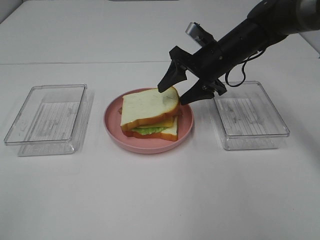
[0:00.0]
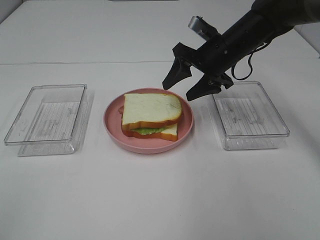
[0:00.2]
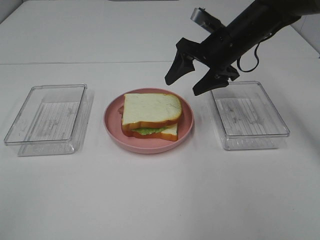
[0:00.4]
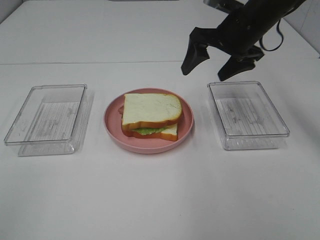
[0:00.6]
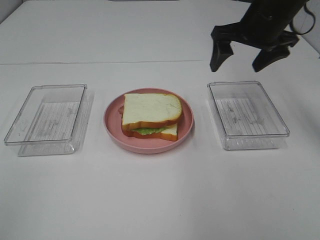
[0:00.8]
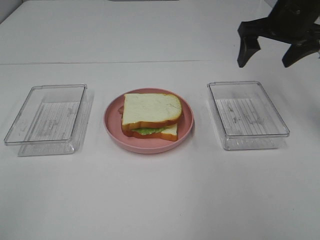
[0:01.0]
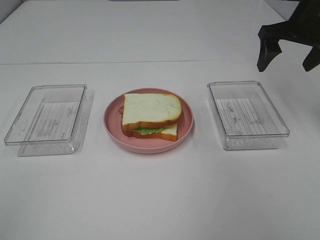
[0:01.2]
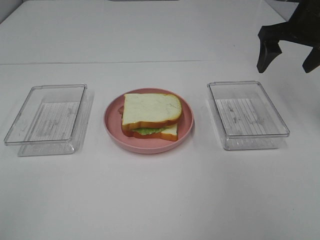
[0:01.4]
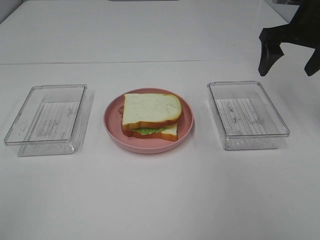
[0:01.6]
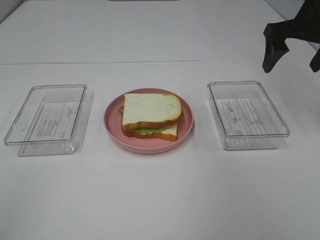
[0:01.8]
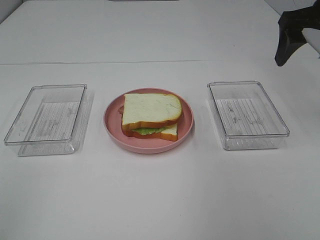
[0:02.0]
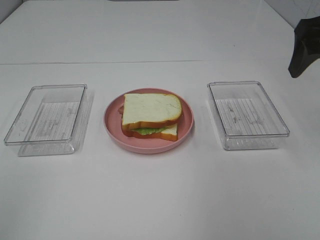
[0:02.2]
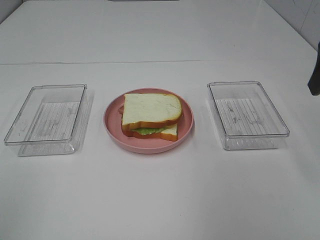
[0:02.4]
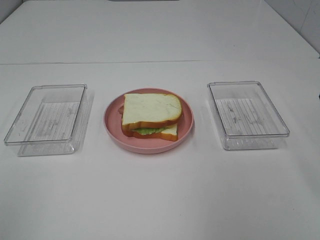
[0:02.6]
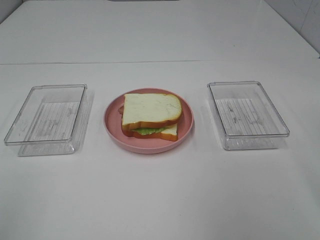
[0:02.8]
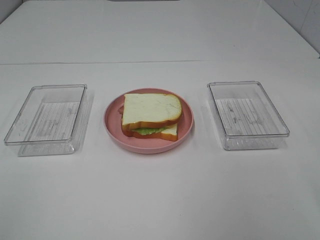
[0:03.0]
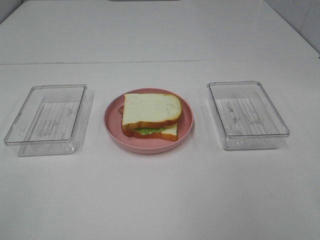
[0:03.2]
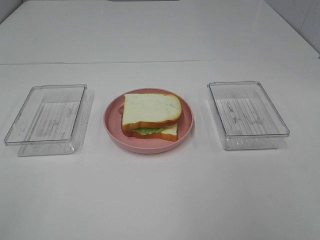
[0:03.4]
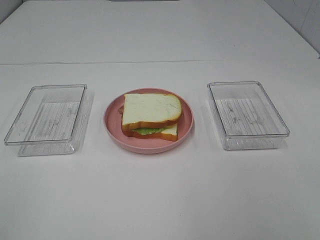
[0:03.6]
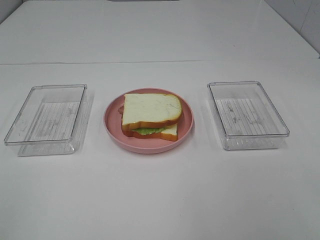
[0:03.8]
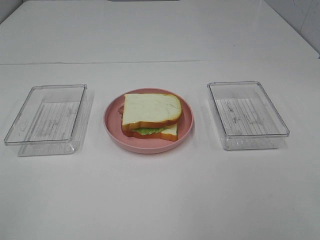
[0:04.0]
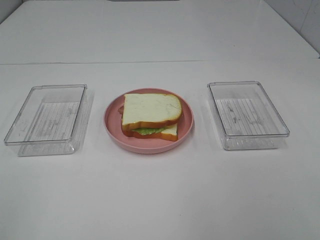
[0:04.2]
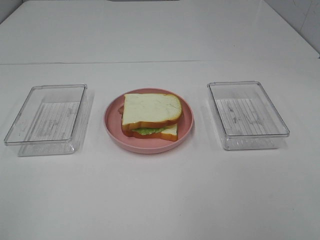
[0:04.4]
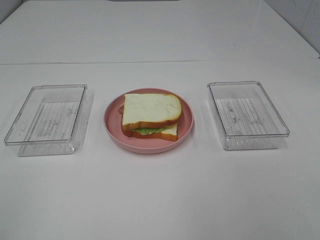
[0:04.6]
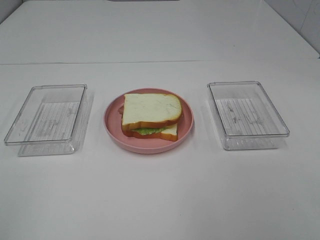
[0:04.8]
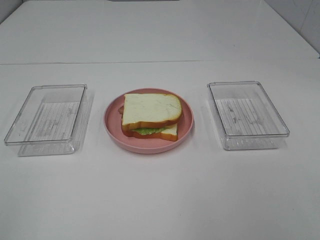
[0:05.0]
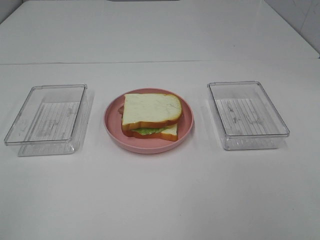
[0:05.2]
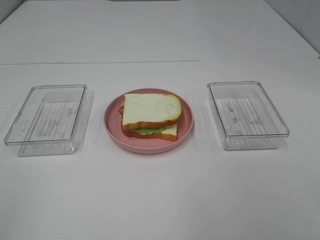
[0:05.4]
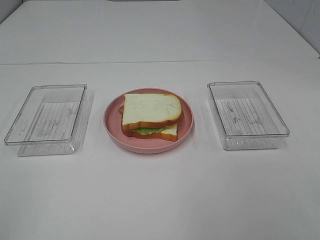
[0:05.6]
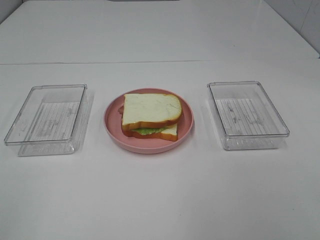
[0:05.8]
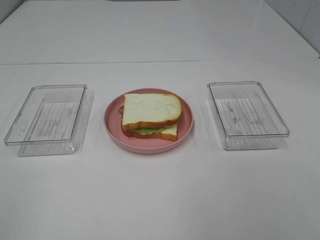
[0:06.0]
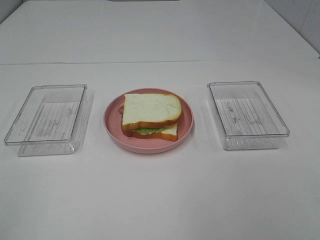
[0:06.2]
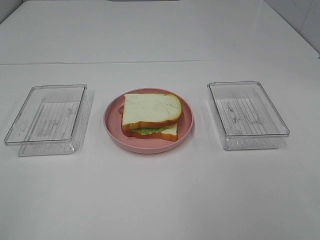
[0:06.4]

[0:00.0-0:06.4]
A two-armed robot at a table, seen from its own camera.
Task of the whole recording: Make sandwiches.
0:00.0 to 0:01.6: The right gripper is displaced to the right and upward by approximately 15 cm.
0:01.6 to 0:03.2: The right gripper heads backward, covering approximately 30 cm.
0:04.8 to 0:06.4: Both grippers stay put.

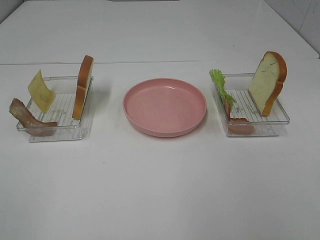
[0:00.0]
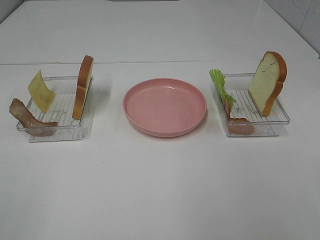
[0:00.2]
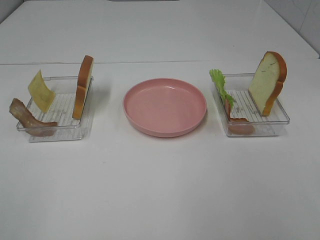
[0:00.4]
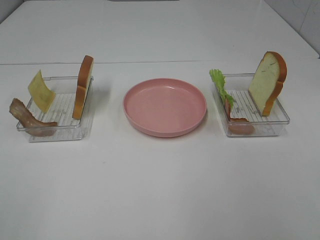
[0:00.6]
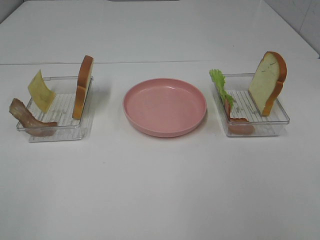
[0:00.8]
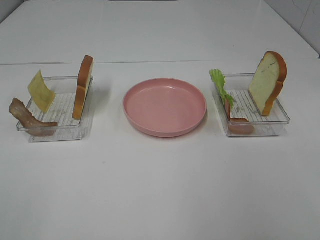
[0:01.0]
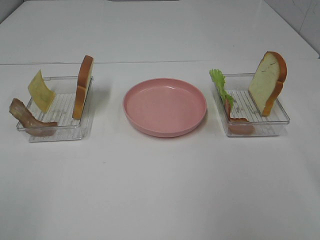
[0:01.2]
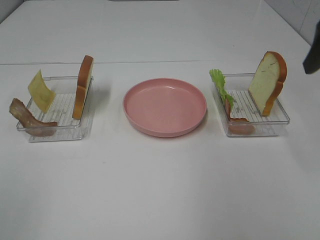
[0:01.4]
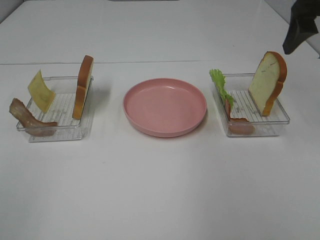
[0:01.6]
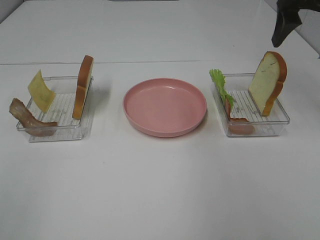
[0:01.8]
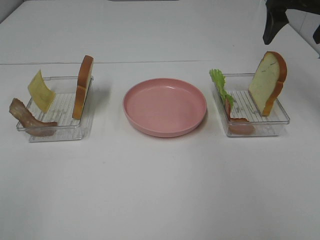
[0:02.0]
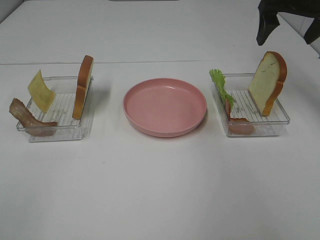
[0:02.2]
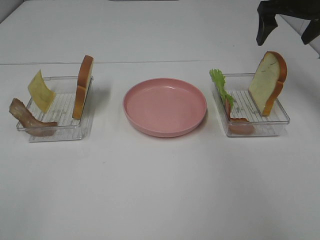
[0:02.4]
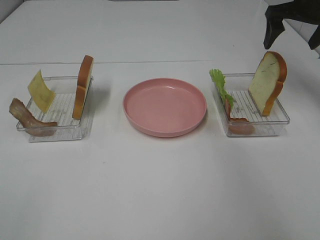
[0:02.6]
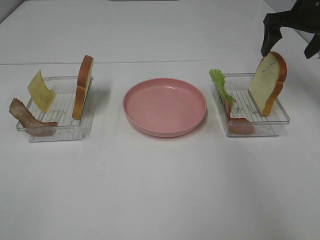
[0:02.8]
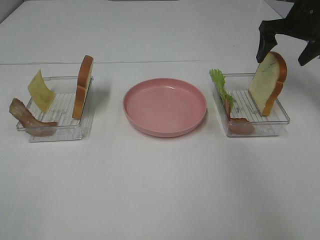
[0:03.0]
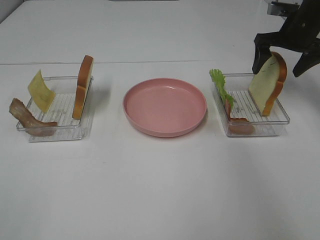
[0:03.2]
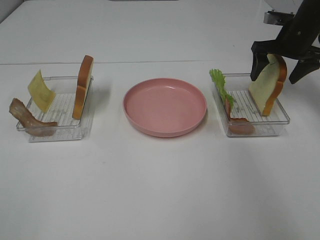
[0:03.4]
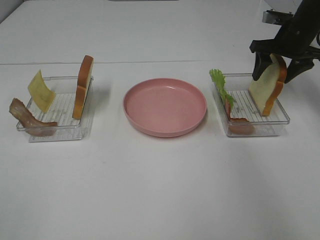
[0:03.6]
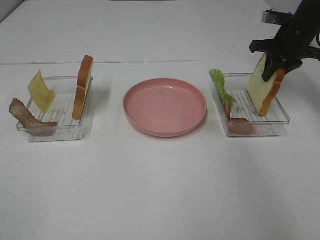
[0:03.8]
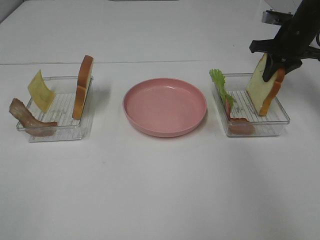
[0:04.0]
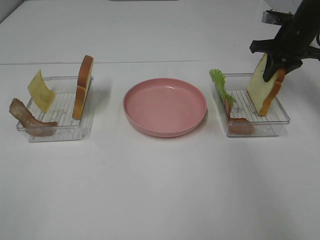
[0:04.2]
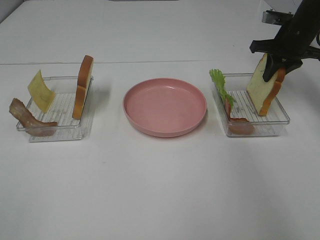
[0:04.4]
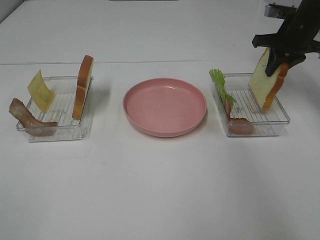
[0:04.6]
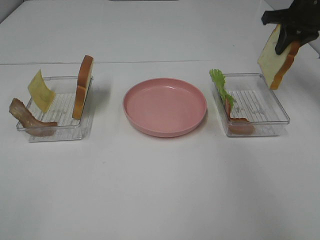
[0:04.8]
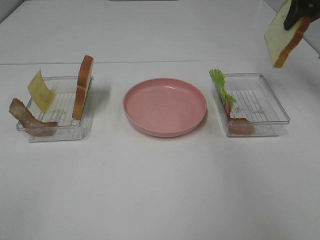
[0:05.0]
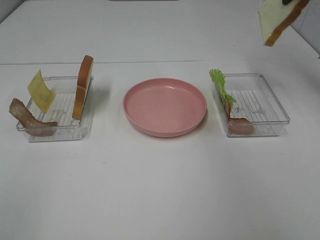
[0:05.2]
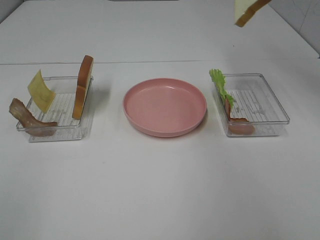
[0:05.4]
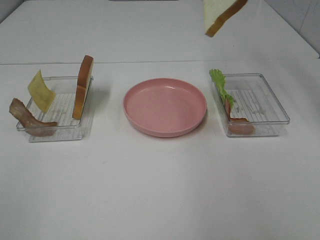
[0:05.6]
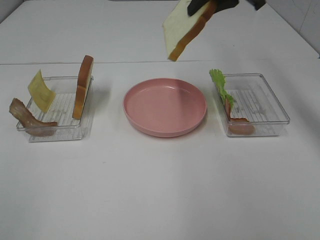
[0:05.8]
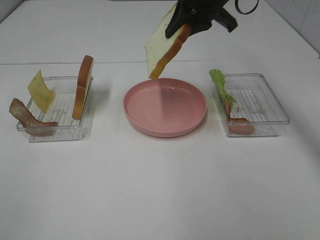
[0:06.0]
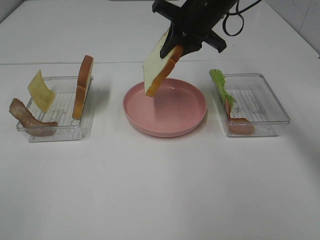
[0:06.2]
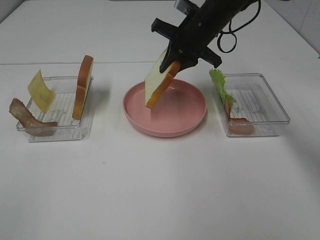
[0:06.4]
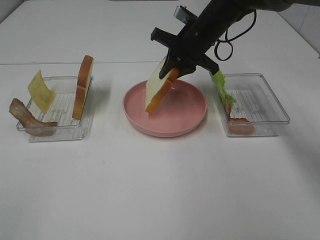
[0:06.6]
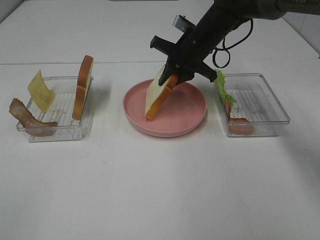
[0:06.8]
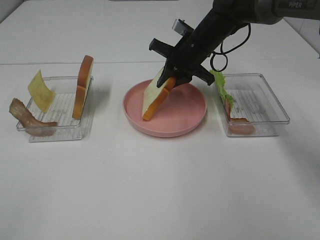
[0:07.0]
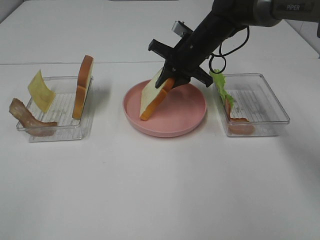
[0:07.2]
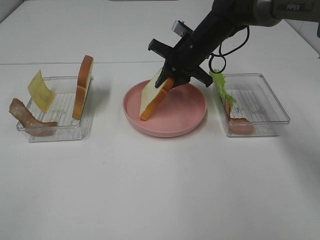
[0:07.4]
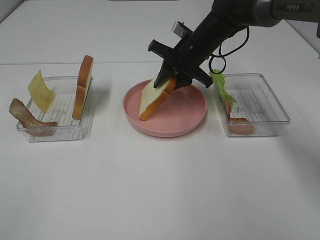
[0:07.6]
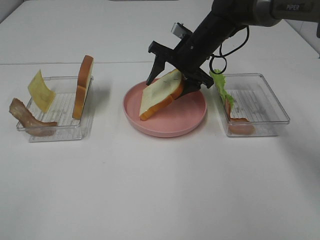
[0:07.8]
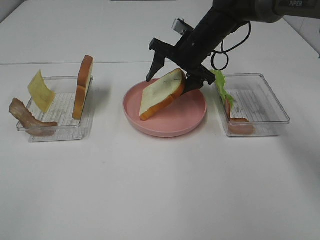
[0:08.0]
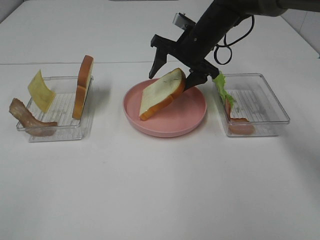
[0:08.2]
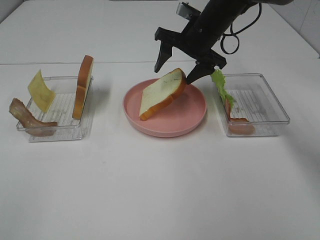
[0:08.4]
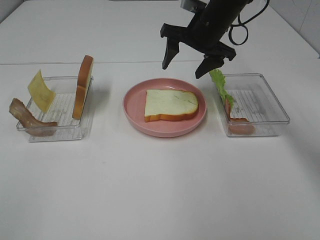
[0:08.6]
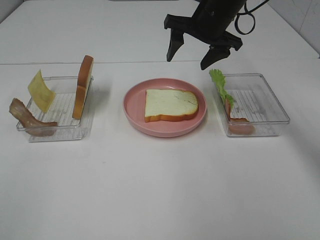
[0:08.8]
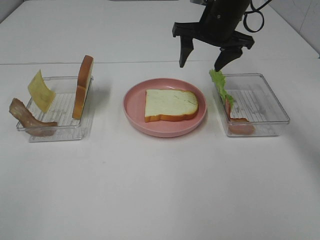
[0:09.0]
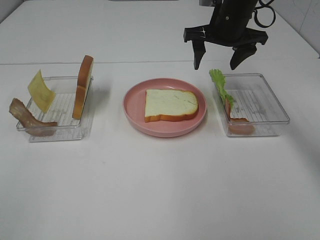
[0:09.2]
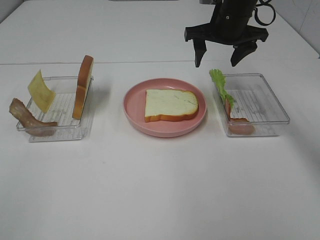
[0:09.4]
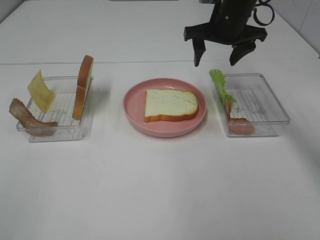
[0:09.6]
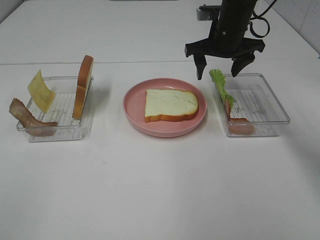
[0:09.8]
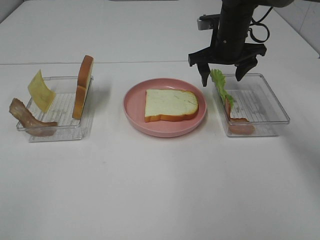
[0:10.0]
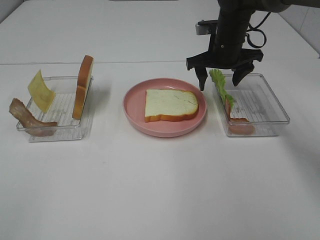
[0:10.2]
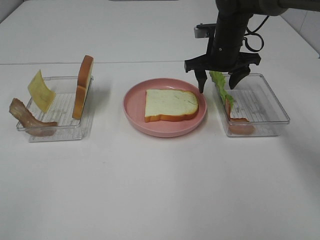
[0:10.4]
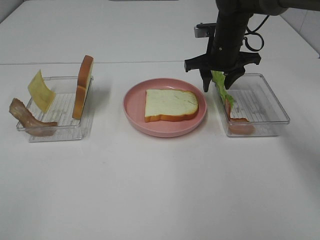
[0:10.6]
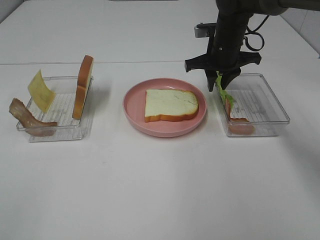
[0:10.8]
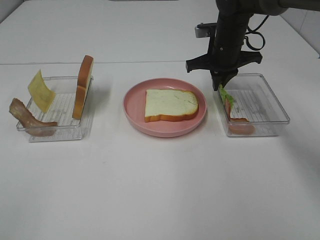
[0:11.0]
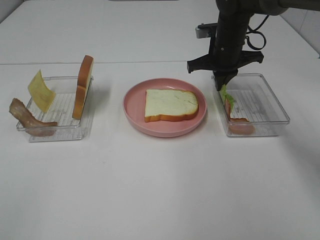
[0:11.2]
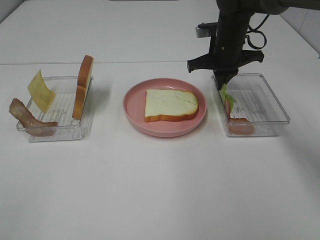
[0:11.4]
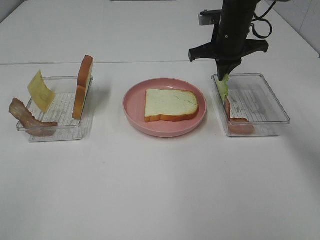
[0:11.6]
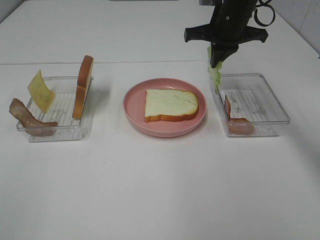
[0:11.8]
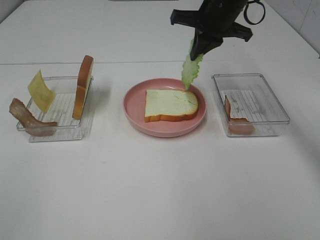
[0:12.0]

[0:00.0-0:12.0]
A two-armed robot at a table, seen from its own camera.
Task of the whole recording: Make sandwiches.
Step, 0:00.0 to 0:04.0: Right hand:grab the bread slice.
Step, 0:04.2 to 0:08.4: Right hand:place the bread slice on the plate.
Step, 0:08.6 to 0:11.2: Right hand:grab the lettuce slice.
0:00.0 to 0:01.6: The right gripper shifts some 35 cm forward.
0:01.6 to 0:03.0: The right gripper goes about 15 cm forward and downward.
0:03.0 to 0:04.4: The right gripper closes.
0:04.4 to 0:06.0: The right gripper goes approximately 20 cm to the left and upward.
0:06.0 to 0:07.6: The right gripper goes some 15 cm downward.
0:07.6 to 0:09.0: The right gripper heads upward, covering some 10 cm, and opens its fingers.
0:09.0 to 0:10.4: The right gripper moves downward, about 5 cm.
0:10.4 to 0:12.0: The right gripper moves upward, some 10 cm, and closes up.

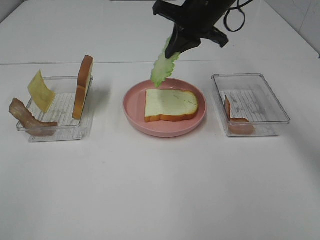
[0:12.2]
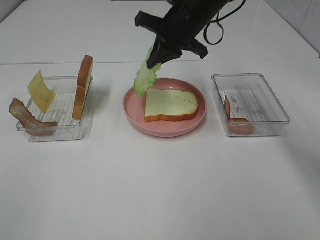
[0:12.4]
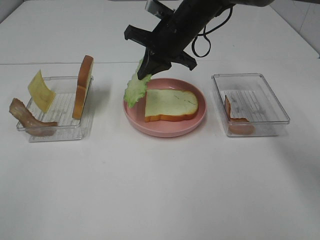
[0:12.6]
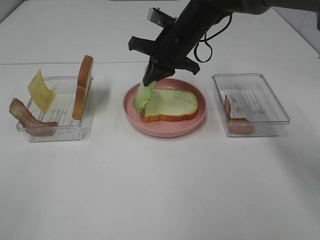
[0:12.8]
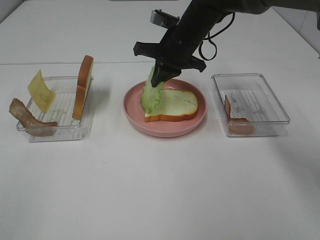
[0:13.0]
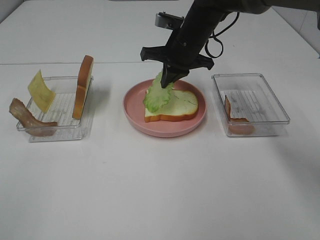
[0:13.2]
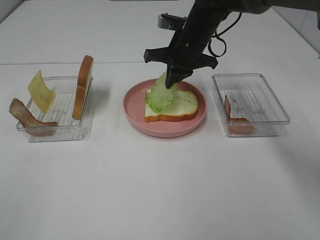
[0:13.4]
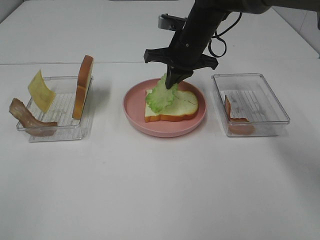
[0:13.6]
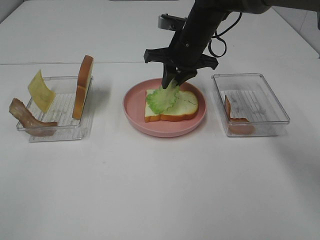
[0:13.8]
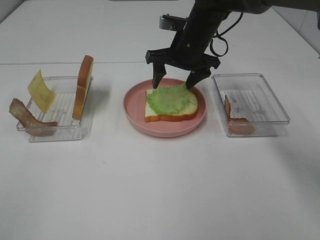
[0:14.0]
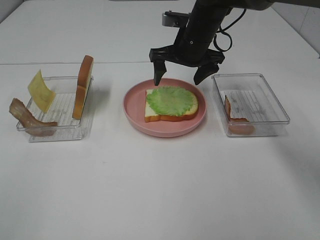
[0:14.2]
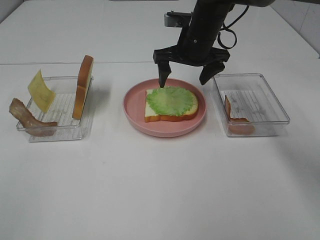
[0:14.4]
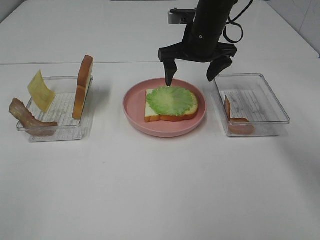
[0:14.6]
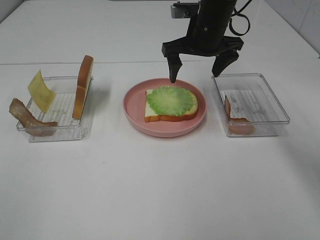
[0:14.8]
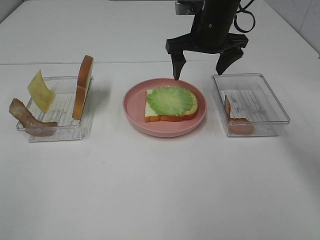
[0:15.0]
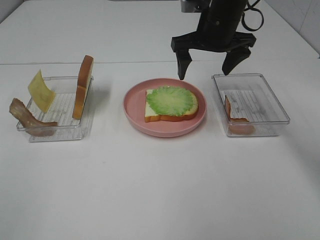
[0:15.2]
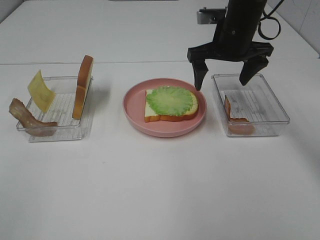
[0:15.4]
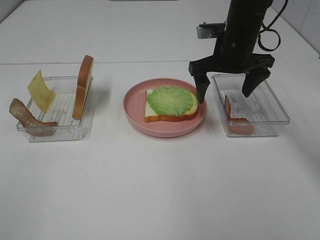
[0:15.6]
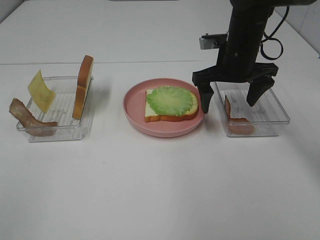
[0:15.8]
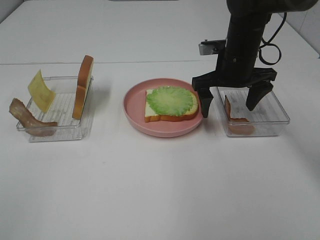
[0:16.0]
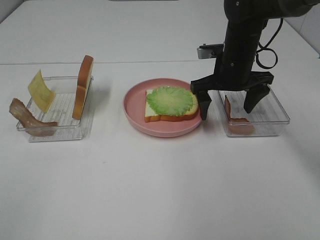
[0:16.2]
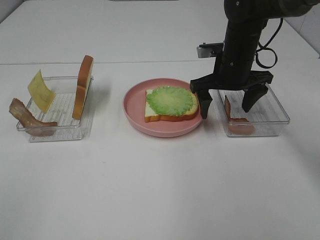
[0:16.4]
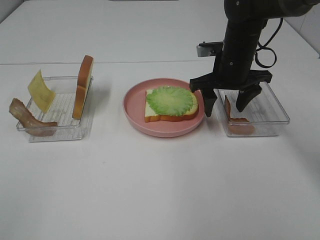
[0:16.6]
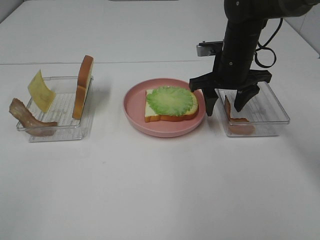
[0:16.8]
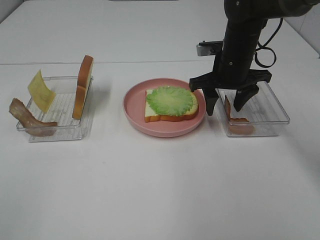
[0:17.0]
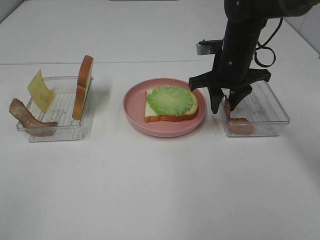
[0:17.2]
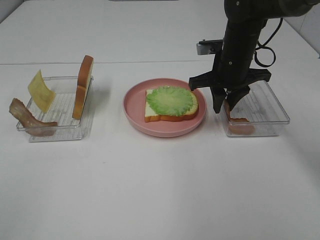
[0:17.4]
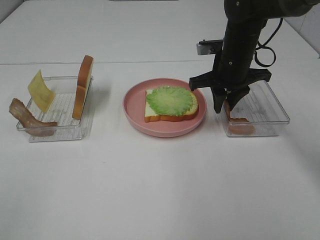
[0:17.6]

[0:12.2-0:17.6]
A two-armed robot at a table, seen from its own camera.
Task of the whole recording: Make sandwiches.
Step, 0:12.2 to 0:14.2: Right hand:place the lettuce slice on the bread slice.
0:12.2 to 0:13.6: The right gripper heads downward, covering some 5 cm.
0:13.6 to 0:15.0: The right gripper ends up about 5 cm from where it was, and opens its fingers.
0:15.0 to 0:16.2: The right gripper goes roughly 5 cm downward.
0:16.2 to 0:17.6: The right gripper closes its fingers.
